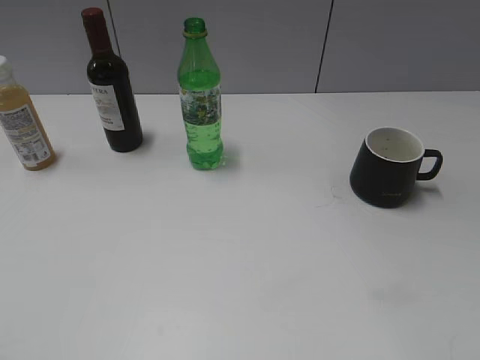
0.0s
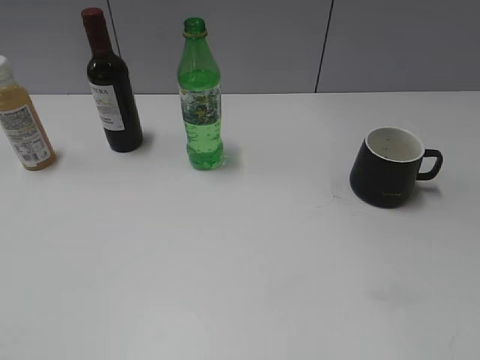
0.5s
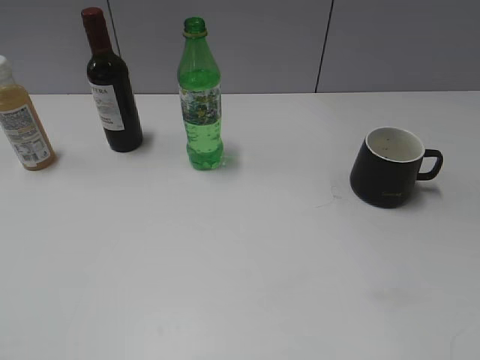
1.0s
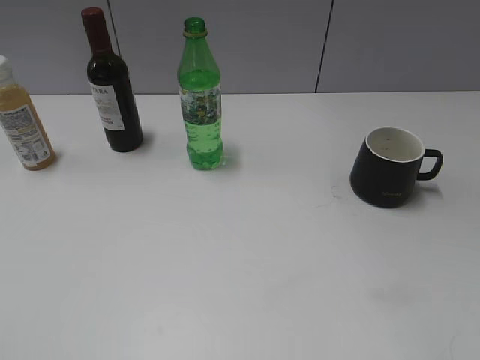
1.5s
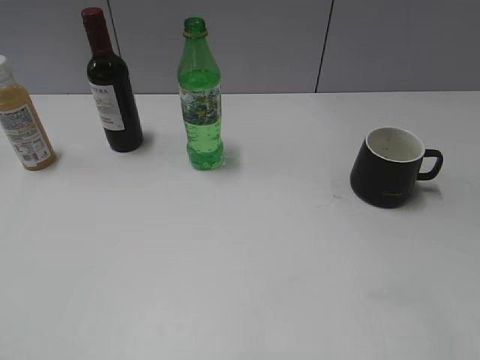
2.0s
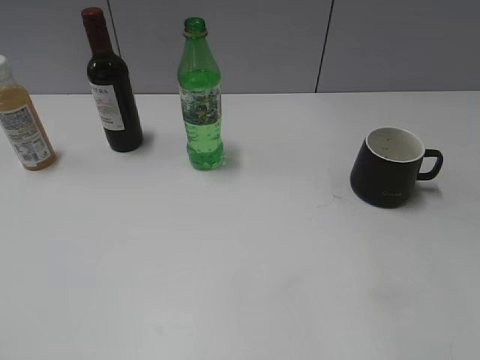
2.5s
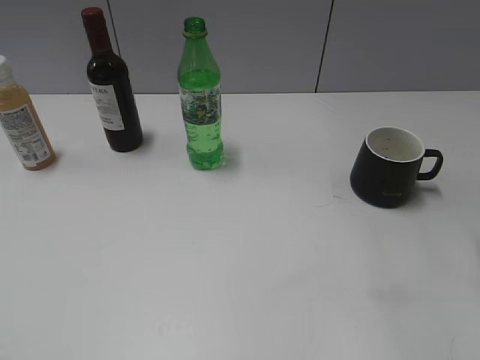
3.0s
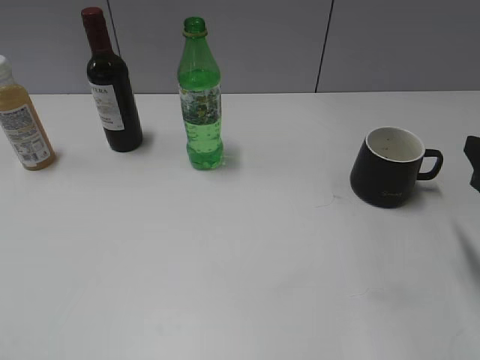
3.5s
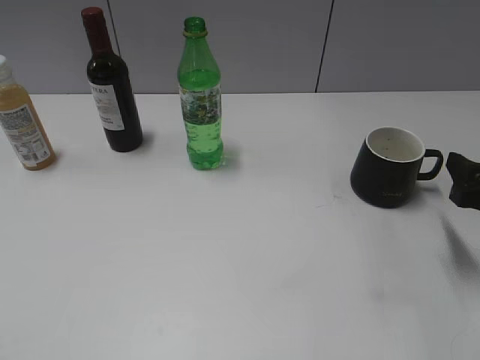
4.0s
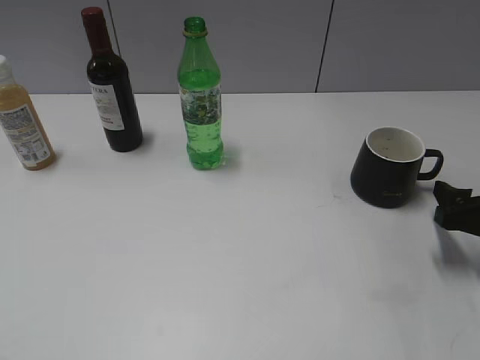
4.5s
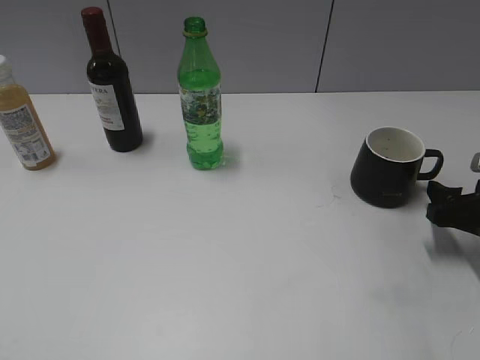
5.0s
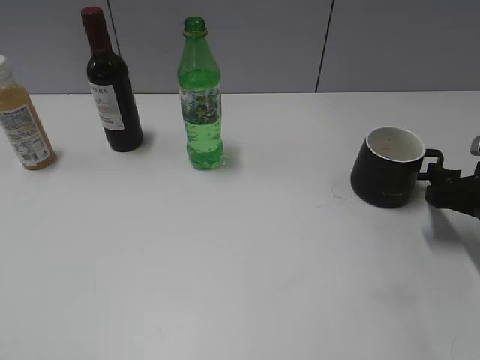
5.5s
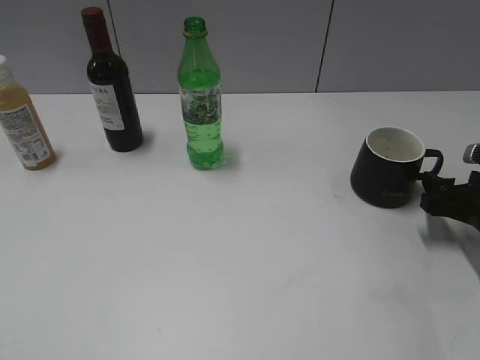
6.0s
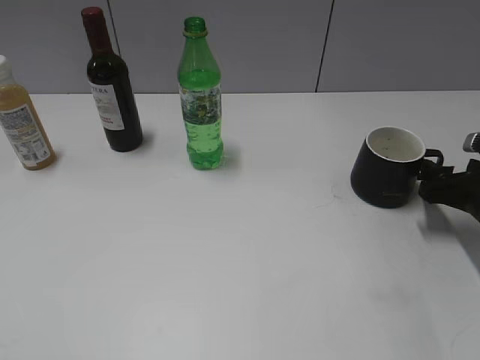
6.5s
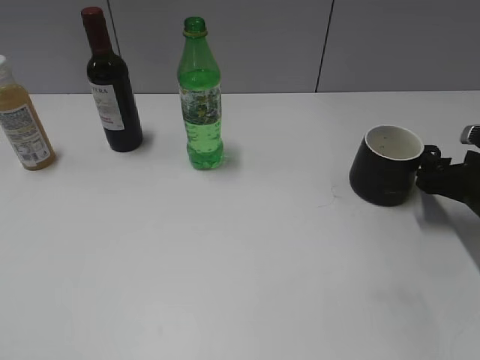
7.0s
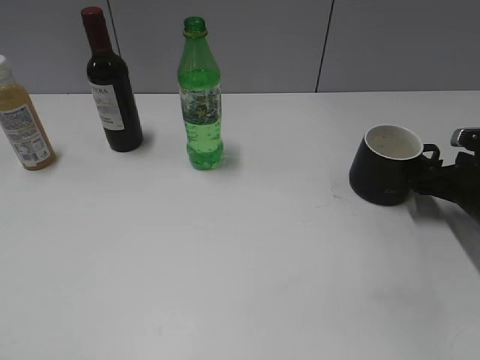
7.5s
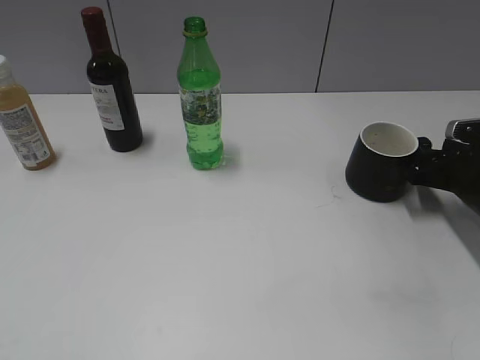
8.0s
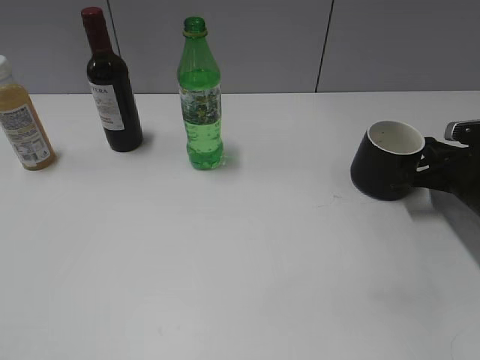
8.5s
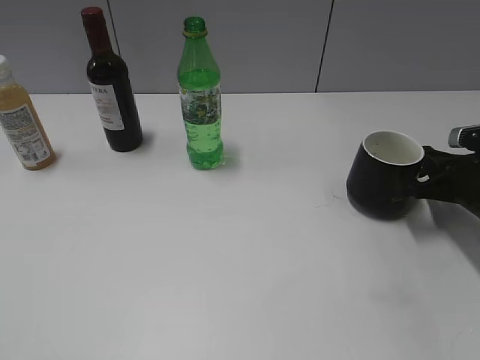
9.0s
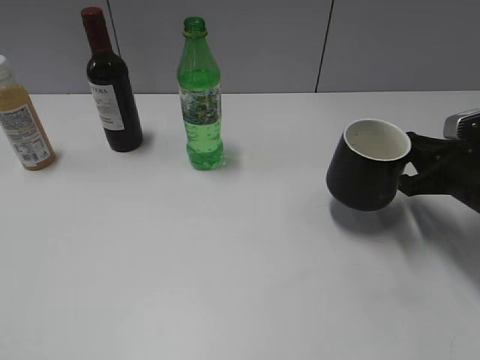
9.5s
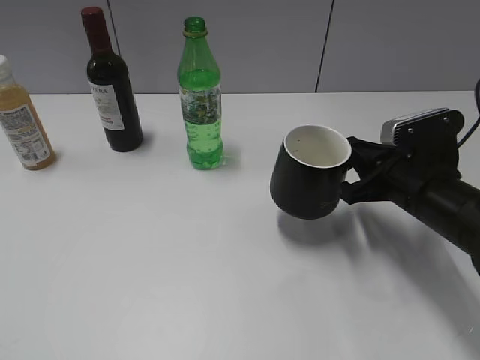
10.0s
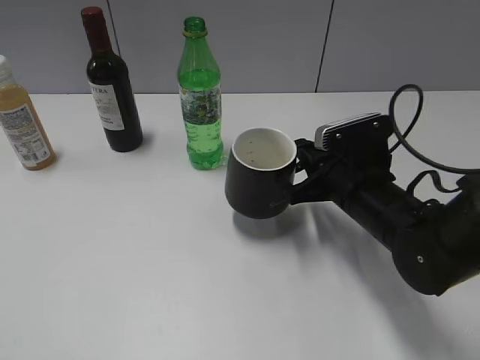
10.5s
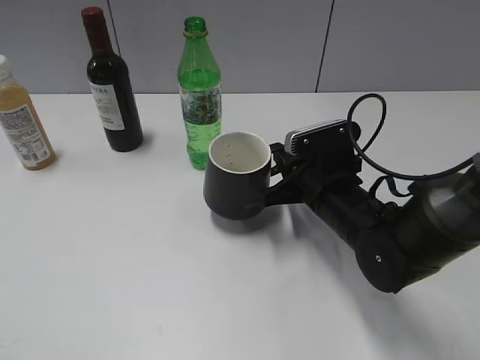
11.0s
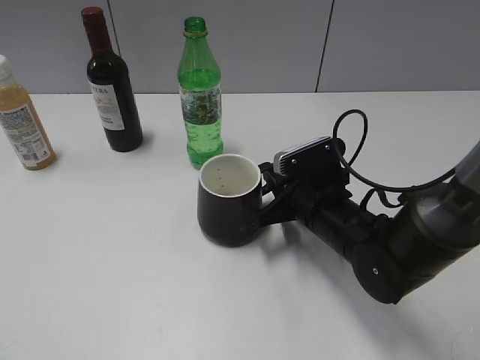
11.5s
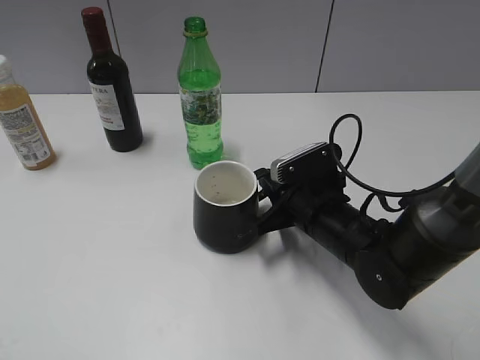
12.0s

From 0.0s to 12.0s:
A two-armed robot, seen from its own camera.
Step, from 1.0s to 8.5s: Grasp the black cup with right gripper.
From 2.0s to 4.0s: The right gripper travels downward and forward by approximately 20 cm.
From 4.0s to 6.0s: The right gripper travels downward by about 5 cm.
From 6.0s to 8.0s: The right gripper heads forward, covering roughly 5 cm.
From 8.0s to 10.0s: The right gripper heads to the left and backward, covering some 10 cm, and closes up.
From 10.0s to 12.0s: The right gripper goes some 10 cm to the left and downward.

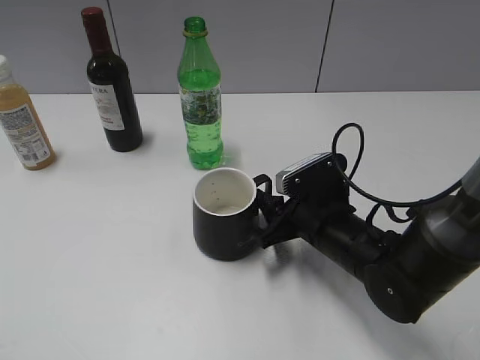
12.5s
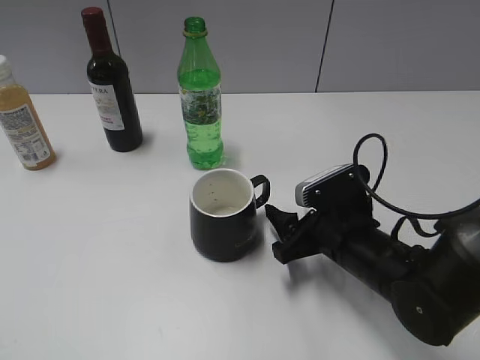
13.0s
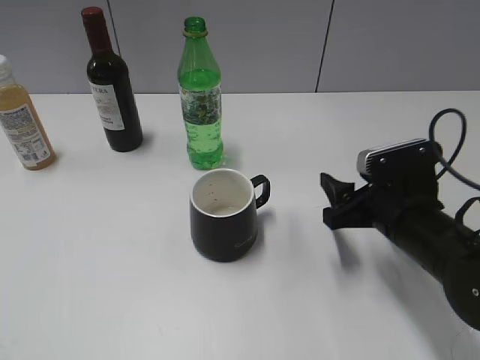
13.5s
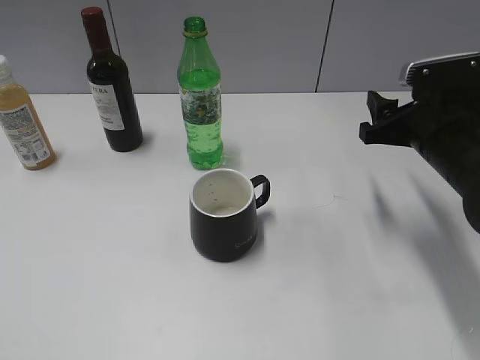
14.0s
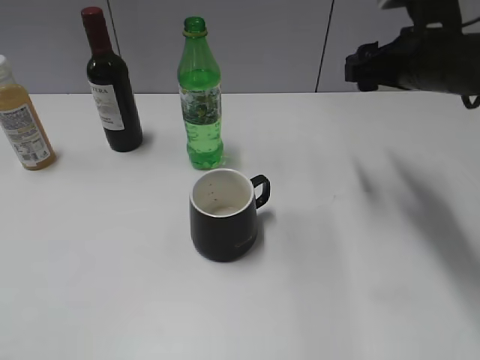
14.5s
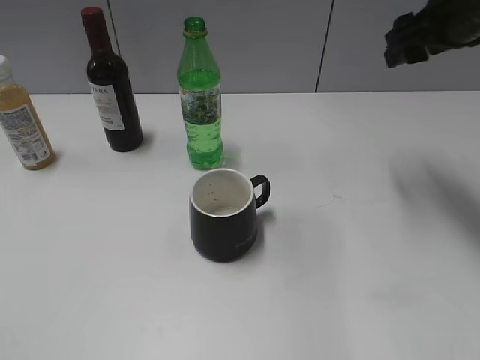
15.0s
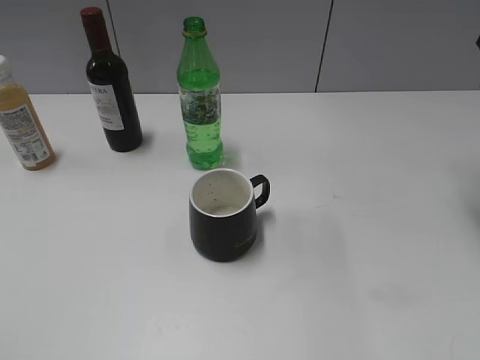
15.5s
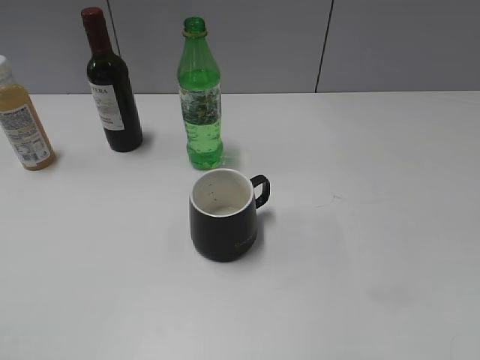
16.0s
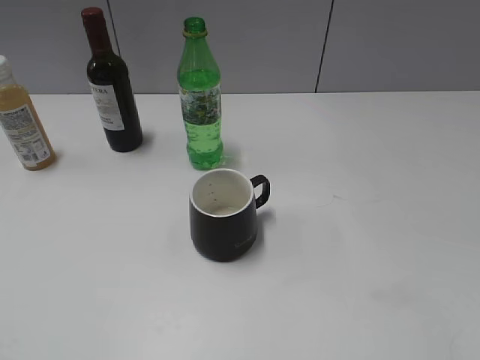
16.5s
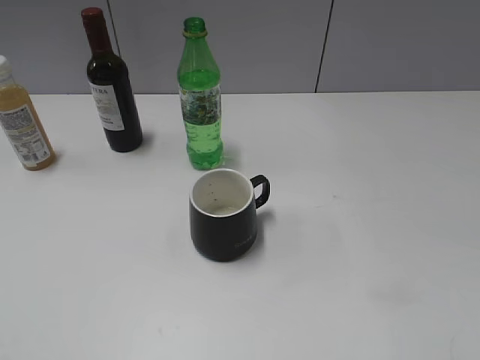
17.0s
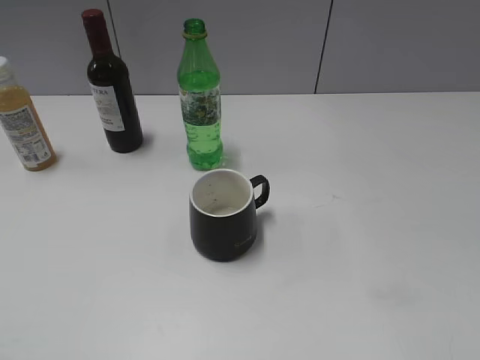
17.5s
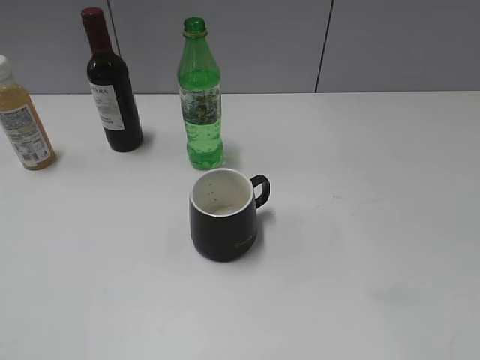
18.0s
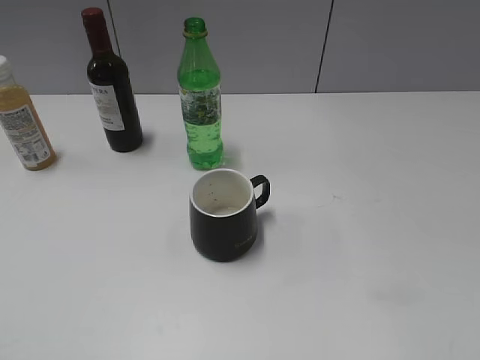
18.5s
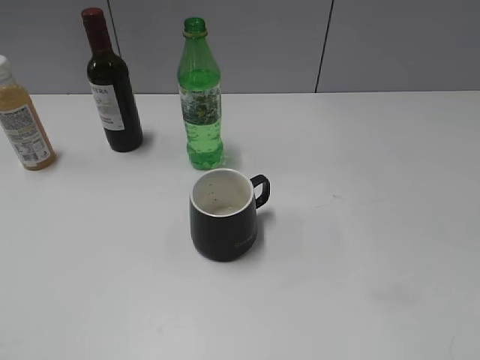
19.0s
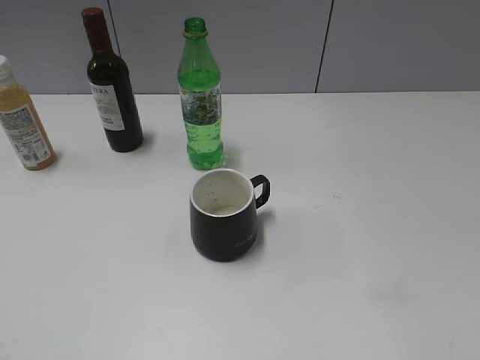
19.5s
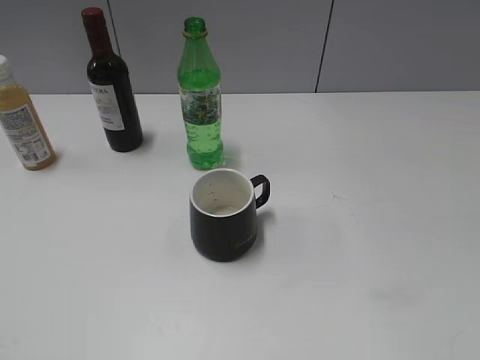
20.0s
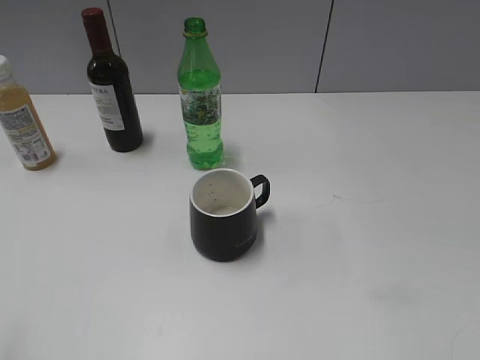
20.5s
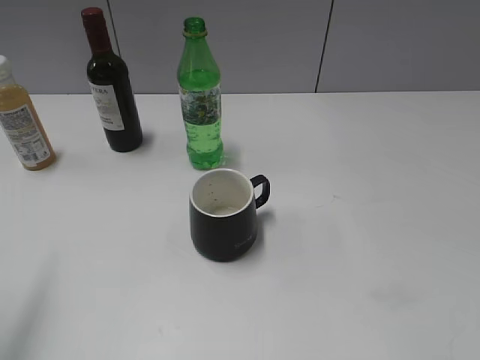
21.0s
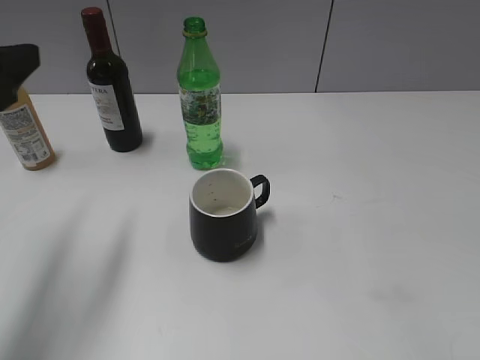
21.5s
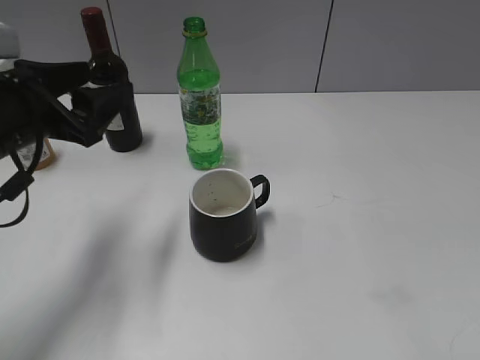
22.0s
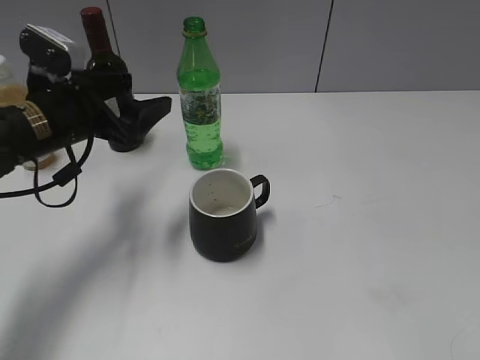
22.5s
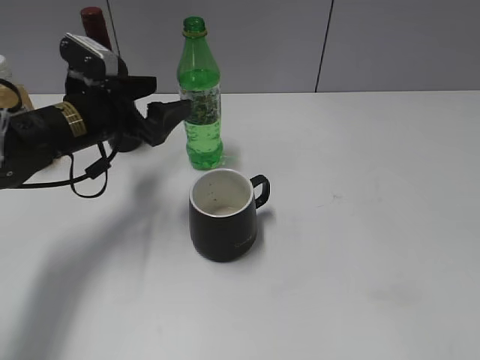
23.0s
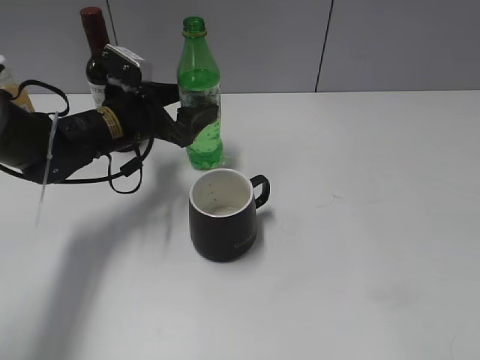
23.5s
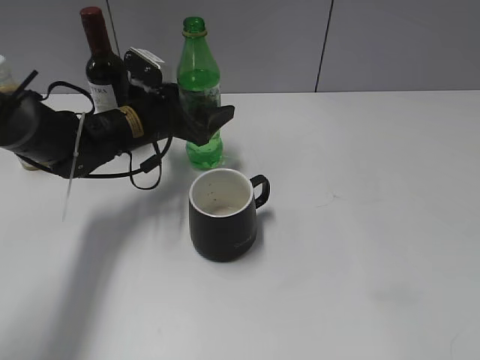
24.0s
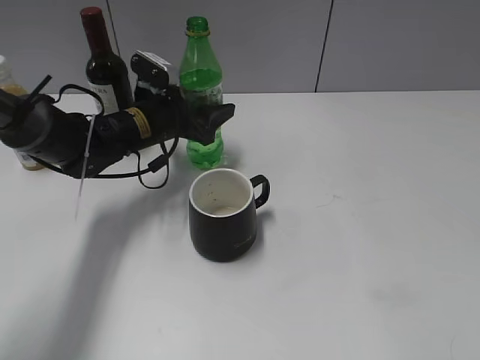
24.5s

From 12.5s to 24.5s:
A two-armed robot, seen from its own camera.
From 12.5s to 14.5s: The right gripper travels upward, forward and to the right by some 20 cm, and opens its fingers.
From 14.5s to 16.5s: The right gripper heads backward, upward and to the right, covering some 25 cm.
From 20.5s to 22.5s: The left gripper goes some 30 cm forward and downward.
From 22.5s to 24.5s: The left gripper shifts roughly 15 cm forward, to the right and downward, and closes up.

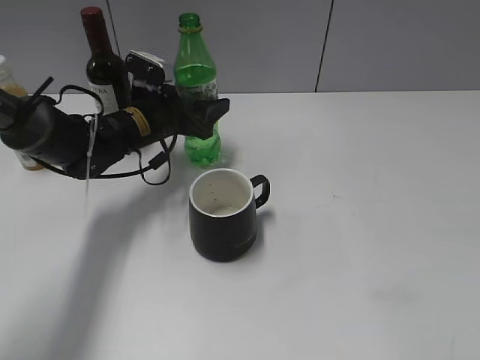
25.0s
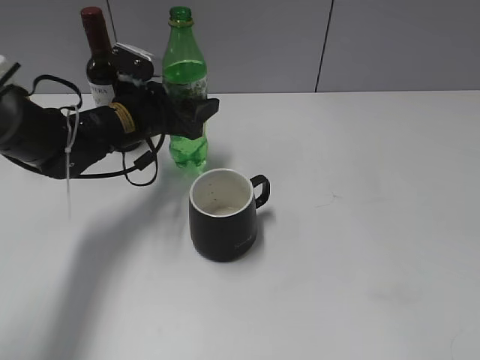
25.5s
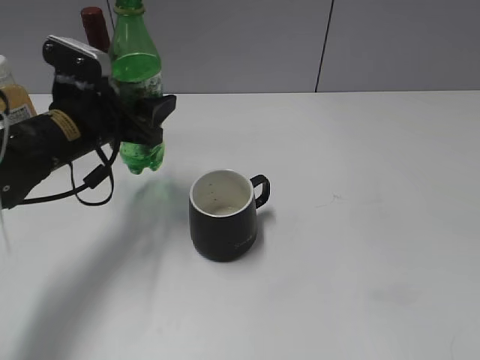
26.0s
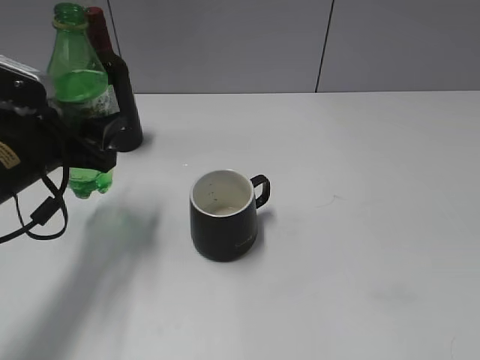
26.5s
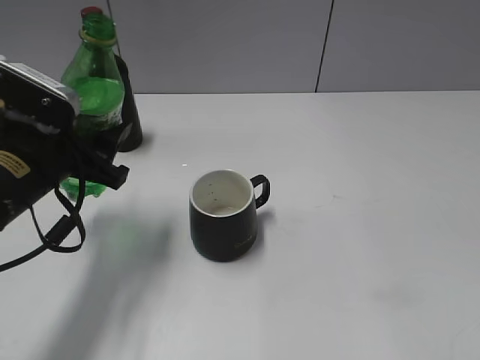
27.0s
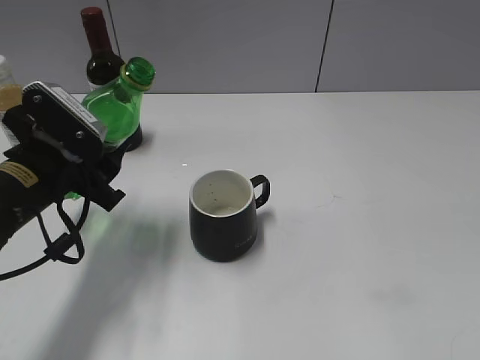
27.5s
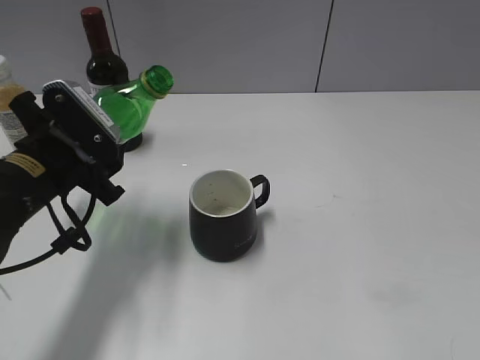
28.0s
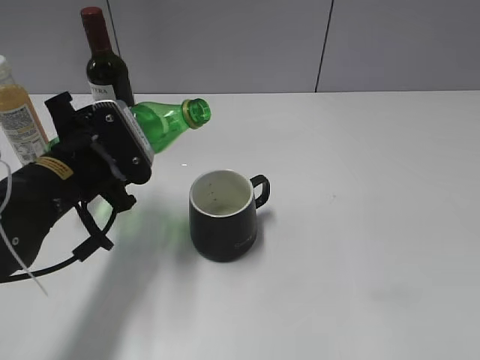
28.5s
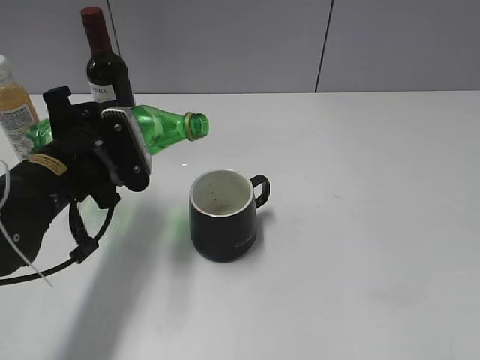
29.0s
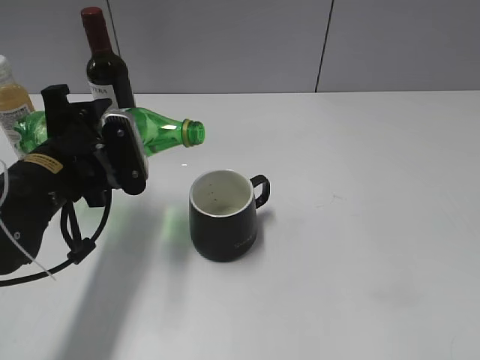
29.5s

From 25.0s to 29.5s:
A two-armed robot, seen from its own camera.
From 25.0s to 27.0s: The left gripper moves backward and to the left, about 20 cm.
